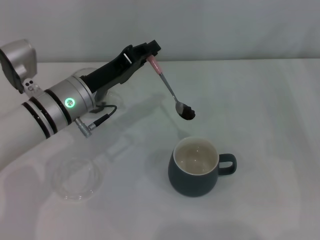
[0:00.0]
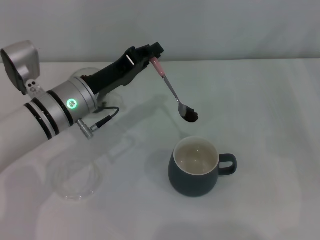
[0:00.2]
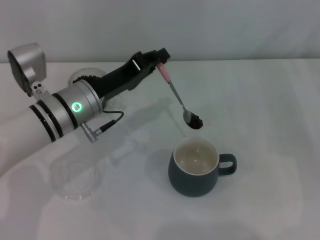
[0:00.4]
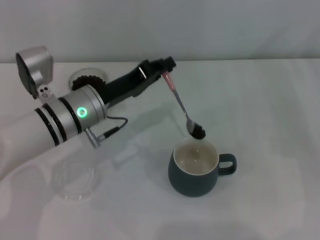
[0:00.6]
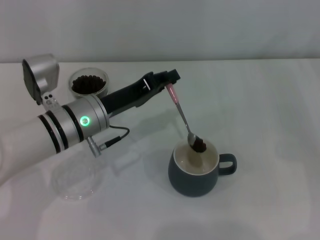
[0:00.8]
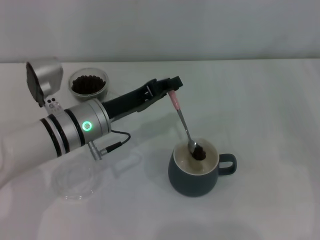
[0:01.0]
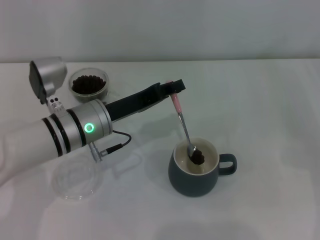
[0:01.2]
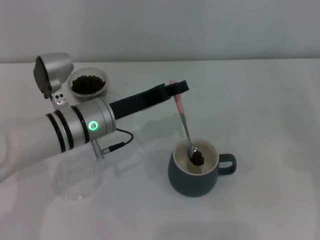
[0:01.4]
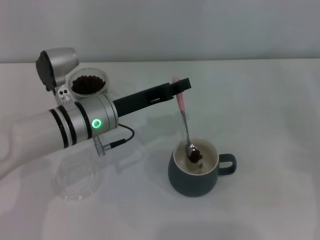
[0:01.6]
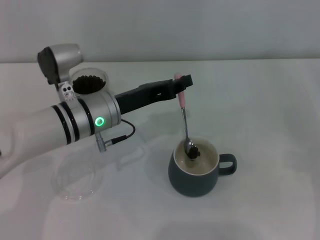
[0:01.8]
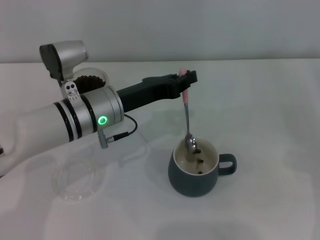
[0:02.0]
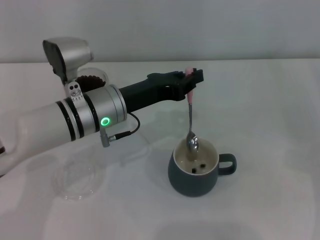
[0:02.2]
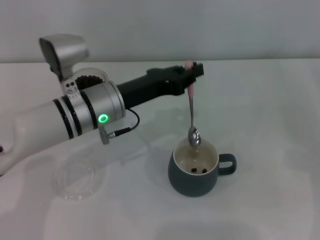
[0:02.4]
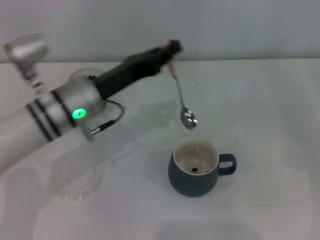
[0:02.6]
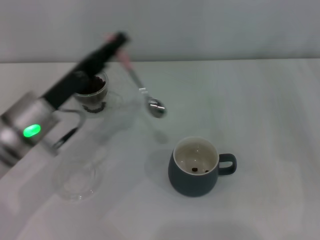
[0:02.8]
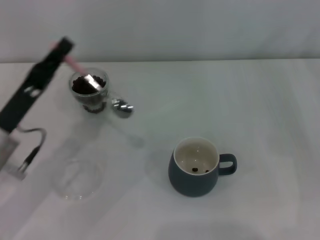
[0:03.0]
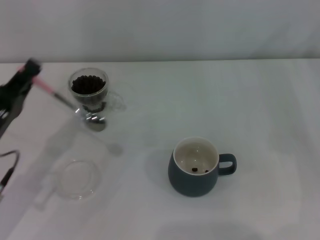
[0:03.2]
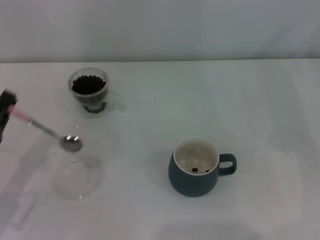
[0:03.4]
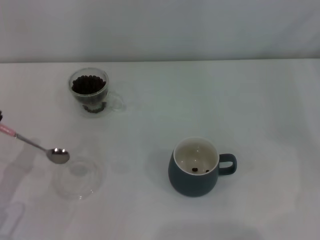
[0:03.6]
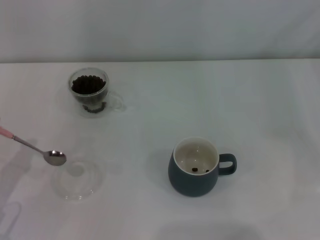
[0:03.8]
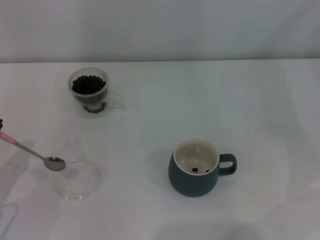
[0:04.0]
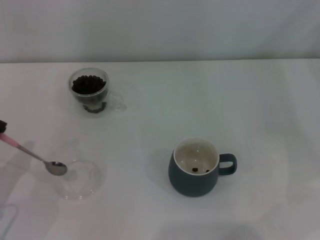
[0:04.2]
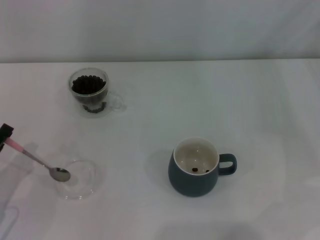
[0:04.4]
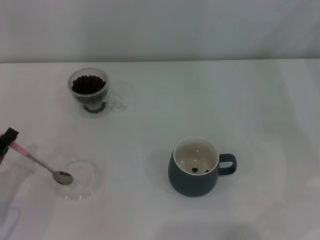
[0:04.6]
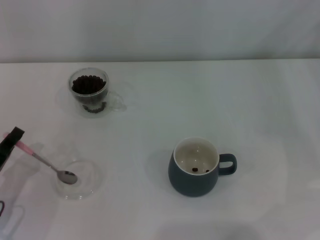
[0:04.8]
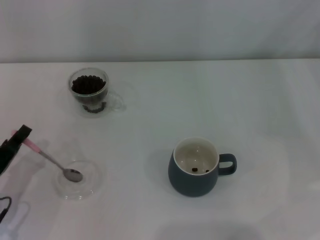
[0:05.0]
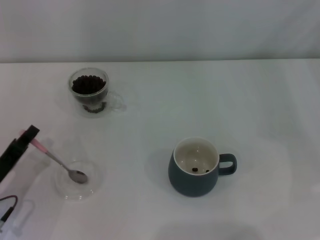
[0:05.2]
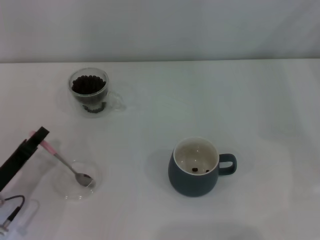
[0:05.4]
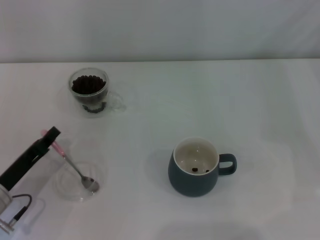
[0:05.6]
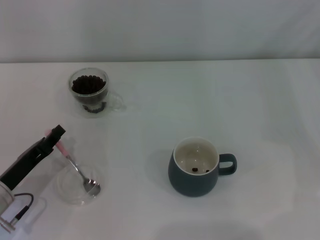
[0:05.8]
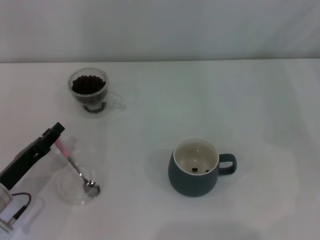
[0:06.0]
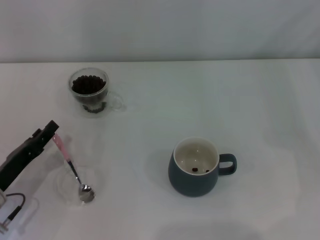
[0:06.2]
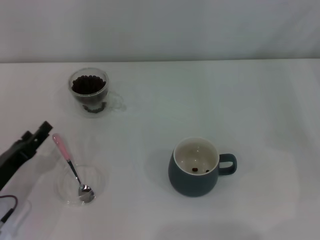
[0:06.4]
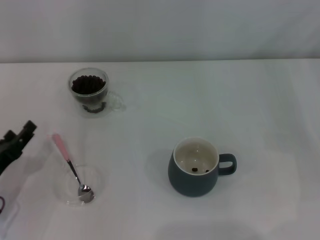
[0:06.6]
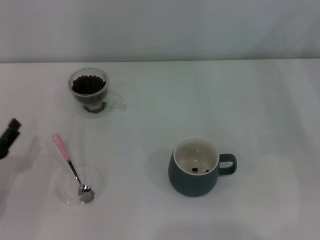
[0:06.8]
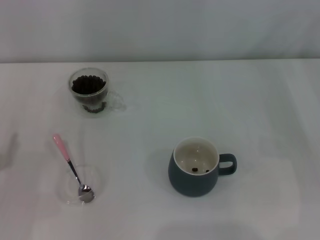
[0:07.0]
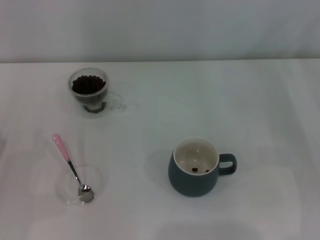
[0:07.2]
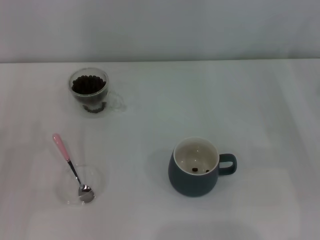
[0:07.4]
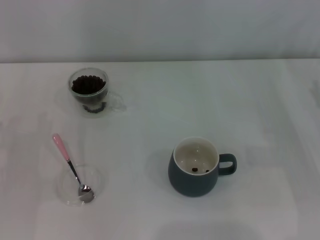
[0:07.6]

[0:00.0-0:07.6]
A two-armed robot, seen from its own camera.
Task of the whole recording: Use a pink spoon to take out the coffee beans from the glass and pour them into the gray cup.
Step, 0:00.0 to 0:02.0: Scoop a spoonful of beans into the cup with the right gripper.
Step, 0:02.2 to 0:06.2: Place the spoon back in its original place with the right gripper.
0:01.6 to 0:03.0: The left gripper is displaced to the left and backward by approximately 15 cm.
0:03.0 to 0:04.6: The left gripper moves to the left, downward and backward, approximately 15 cm.
0:04.6 to 0:06.0: The left gripper ends up about 5 cm from where it was.
0:06.0 to 0:07.6: The left gripper moves to the left, roughly 5 cm, and opens.
